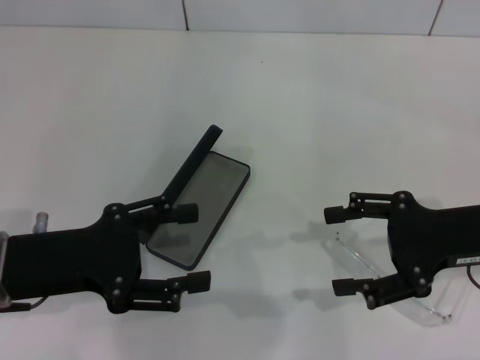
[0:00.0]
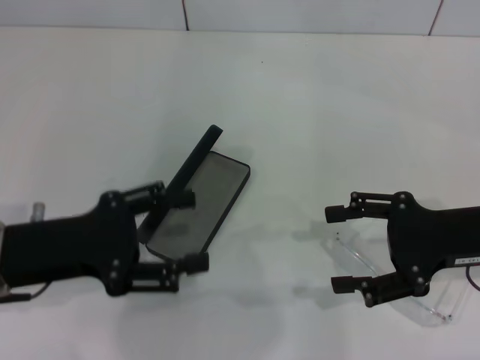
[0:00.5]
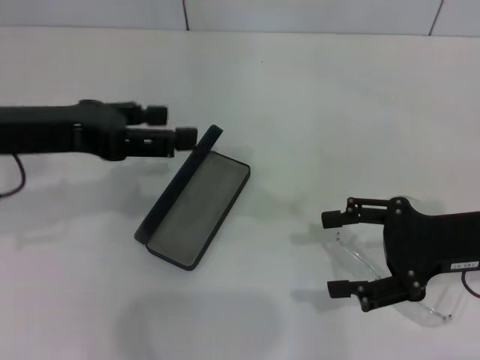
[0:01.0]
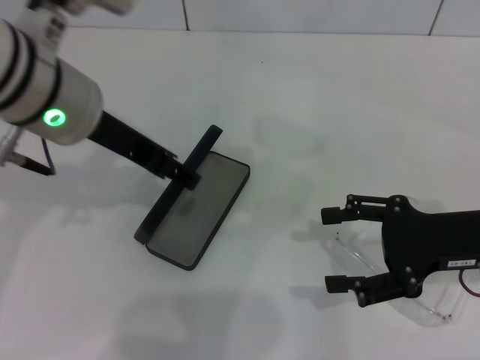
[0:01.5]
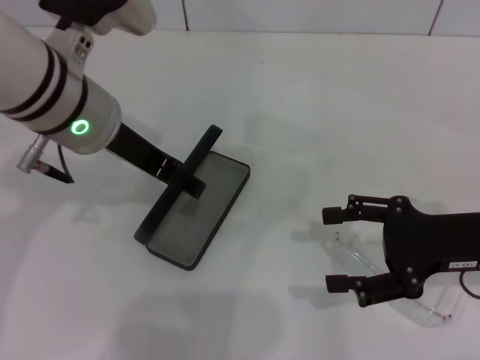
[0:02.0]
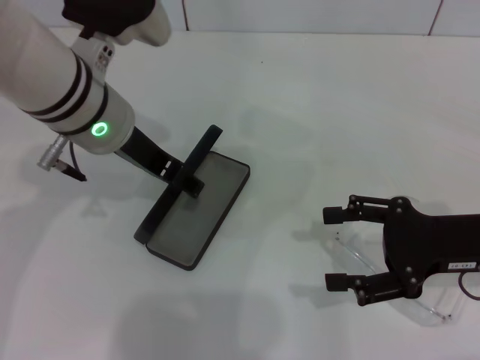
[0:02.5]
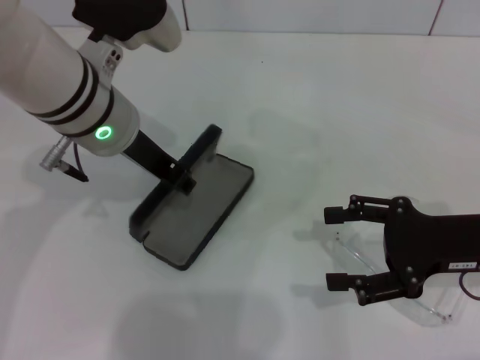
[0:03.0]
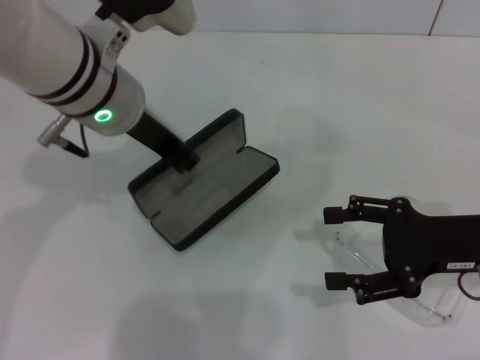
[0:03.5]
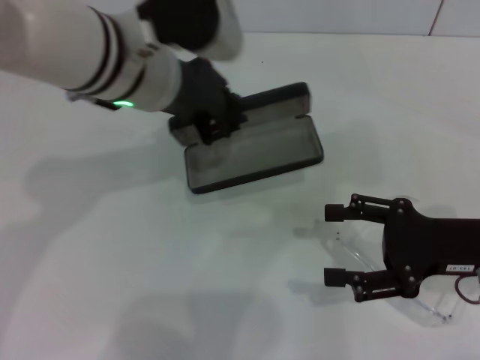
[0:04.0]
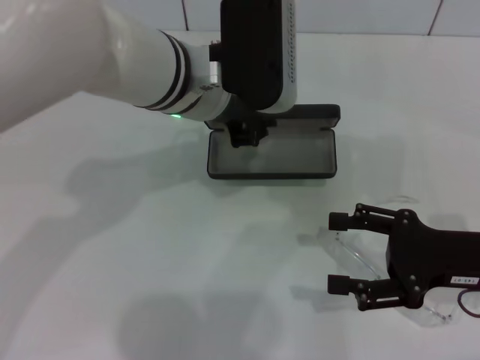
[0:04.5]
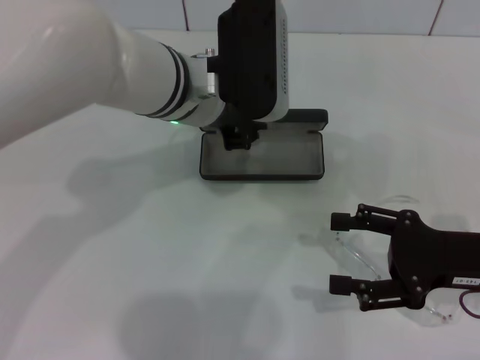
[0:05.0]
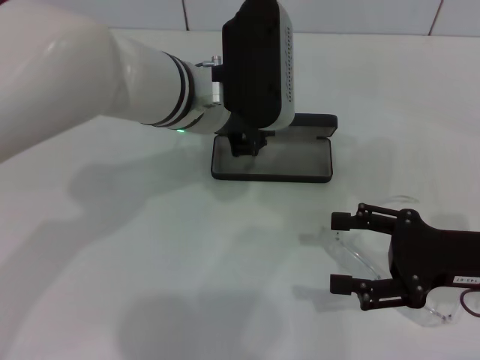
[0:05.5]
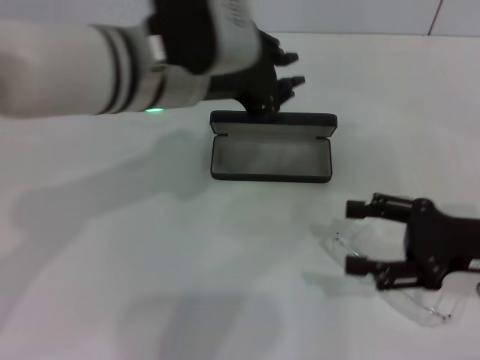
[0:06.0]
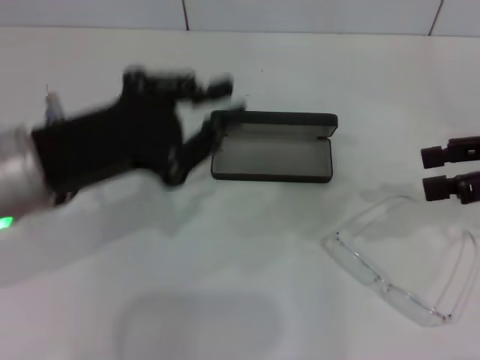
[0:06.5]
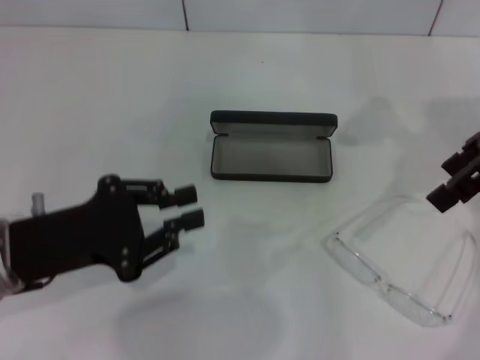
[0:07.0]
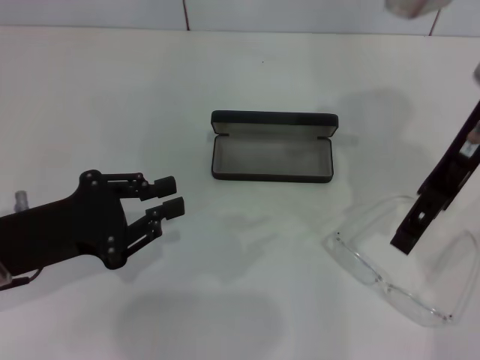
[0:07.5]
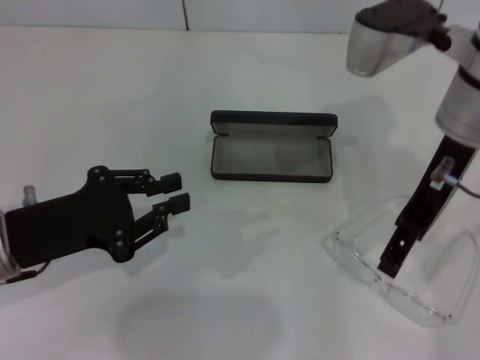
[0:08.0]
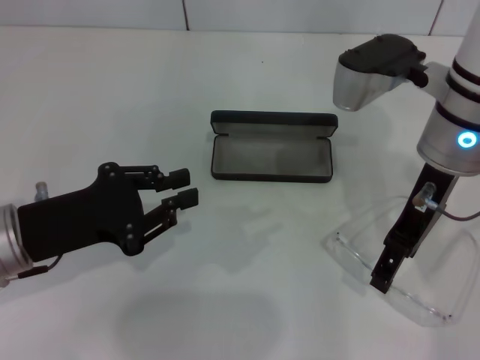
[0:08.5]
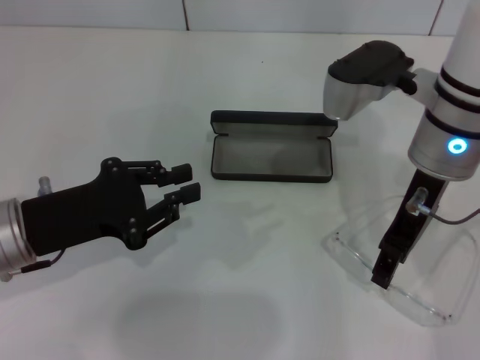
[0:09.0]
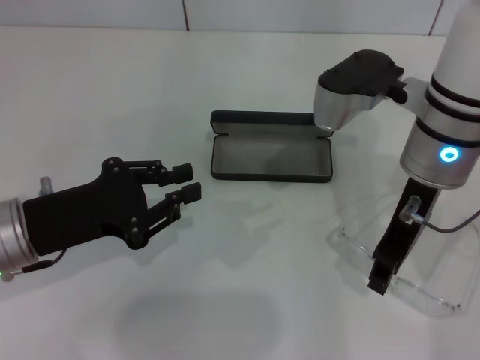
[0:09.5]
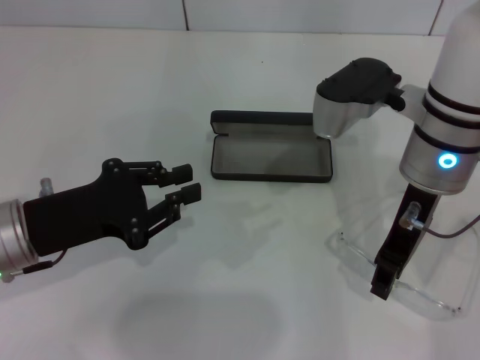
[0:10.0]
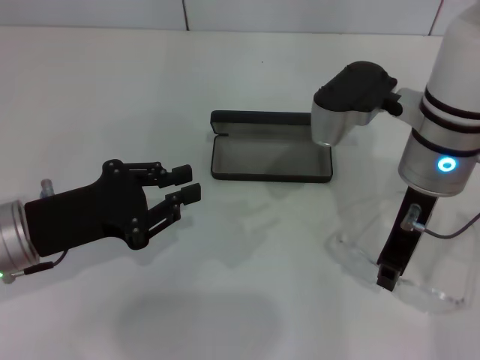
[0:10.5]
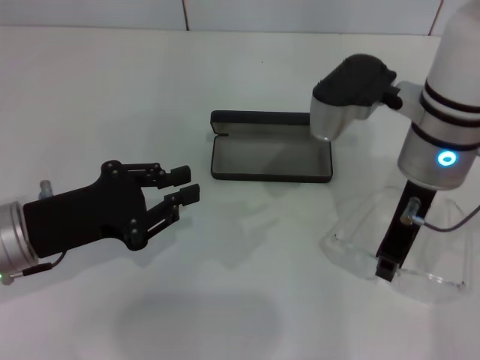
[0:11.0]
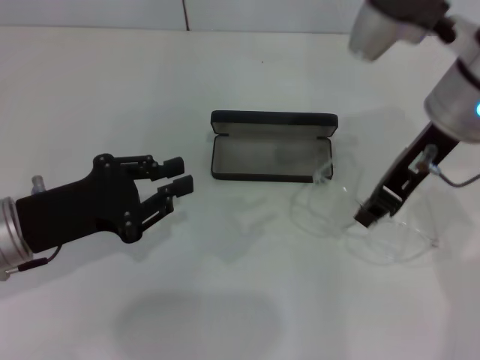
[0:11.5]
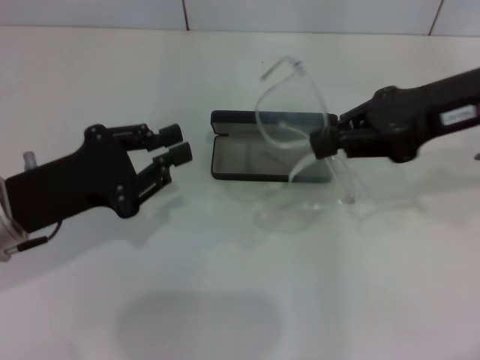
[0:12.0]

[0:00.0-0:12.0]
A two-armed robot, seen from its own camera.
Step, 0:00.0 to 0:03.0: Grab the glasses case with your left hand.
Step, 0:03.5 to 0:05.0: Place the glasses case in the center of the table with your left hand.
Step, 0:06.0 to 0:10.5: Grab the eyeglass frame with your right hand.
0:00.0 to 0:02.0: The left gripper travels forward, to the right and upward by some 15 cm.
0:02.0 to 0:04.0: The left gripper closes.
0:06.0 to 0:08.0: The left gripper is displaced to the left, downward and backward by approximately 20 cm. Meanwhile the right gripper is displaced upward, to the left and forward by approximately 20 cm.
0:08.0 to 0:10.0: The right gripper changes place by approximately 5 cm, and closes up.
0:10.0 to 0:12.0: The right gripper goes some 10 cm to the right and upward, and closes its fingers.

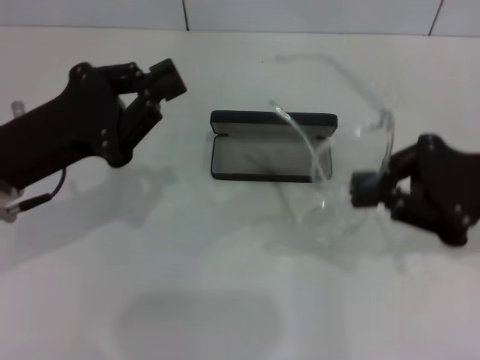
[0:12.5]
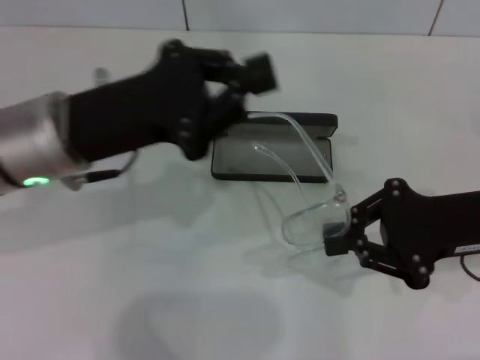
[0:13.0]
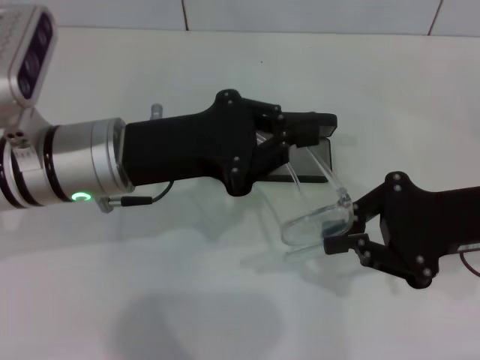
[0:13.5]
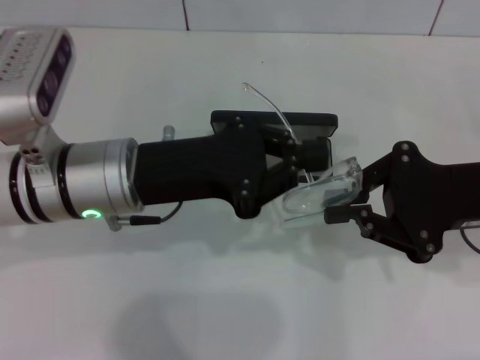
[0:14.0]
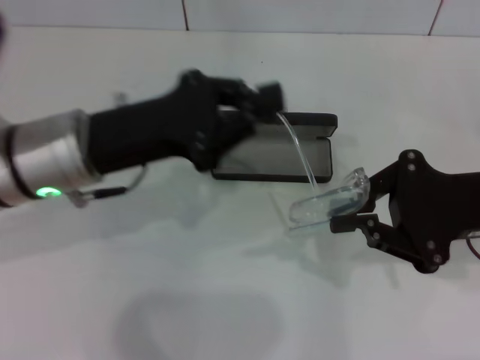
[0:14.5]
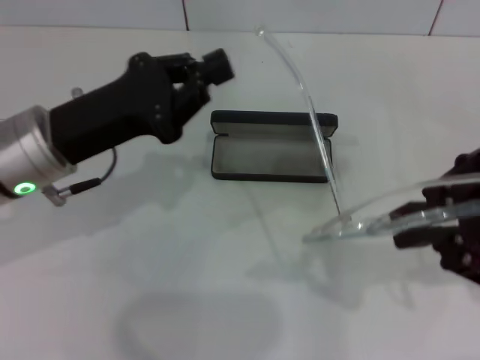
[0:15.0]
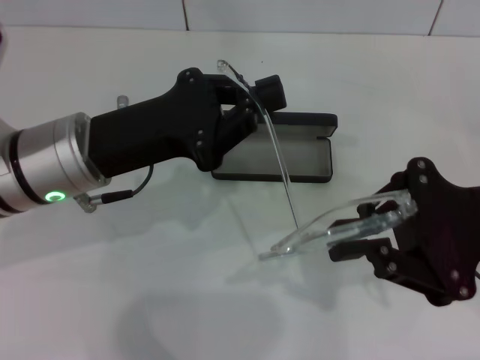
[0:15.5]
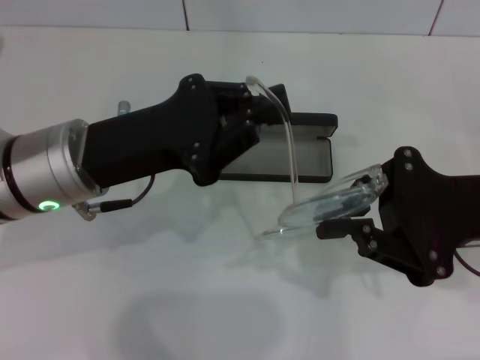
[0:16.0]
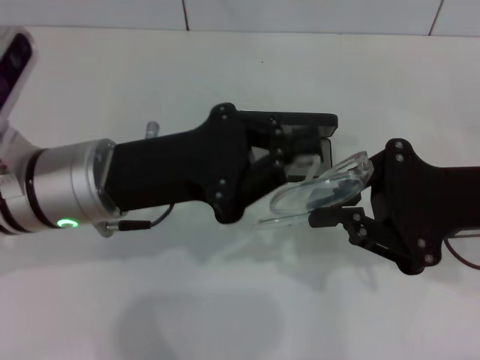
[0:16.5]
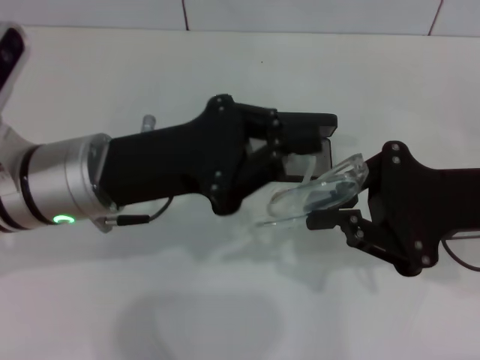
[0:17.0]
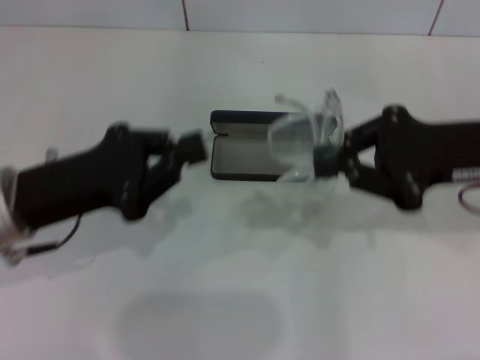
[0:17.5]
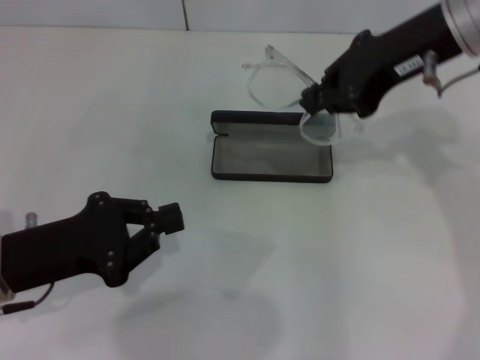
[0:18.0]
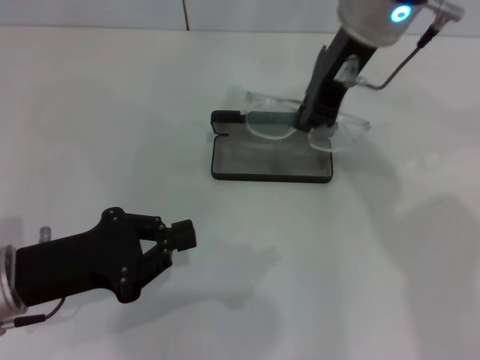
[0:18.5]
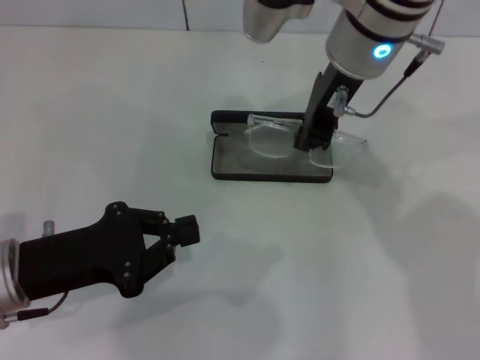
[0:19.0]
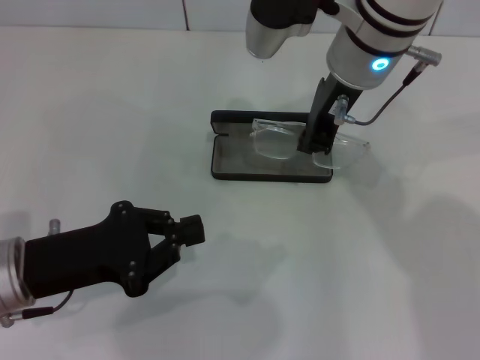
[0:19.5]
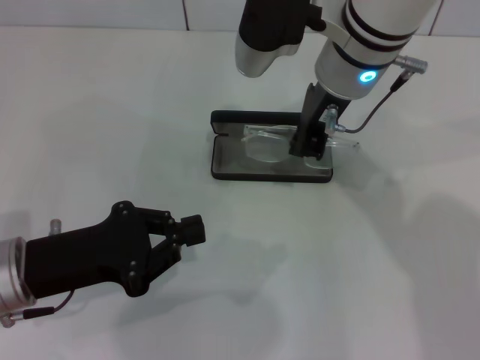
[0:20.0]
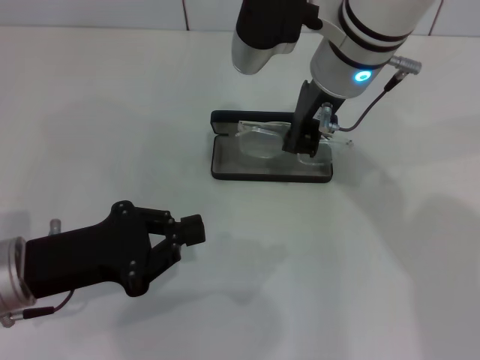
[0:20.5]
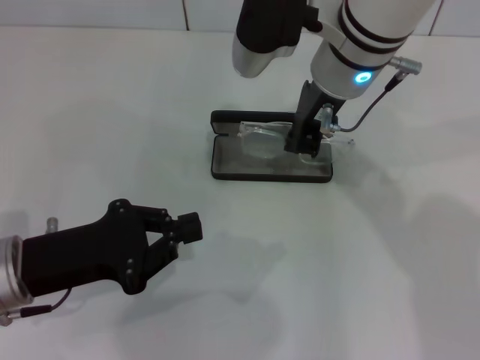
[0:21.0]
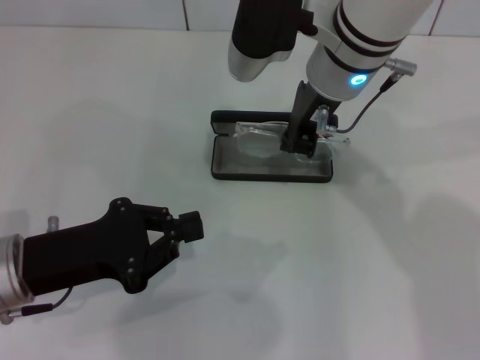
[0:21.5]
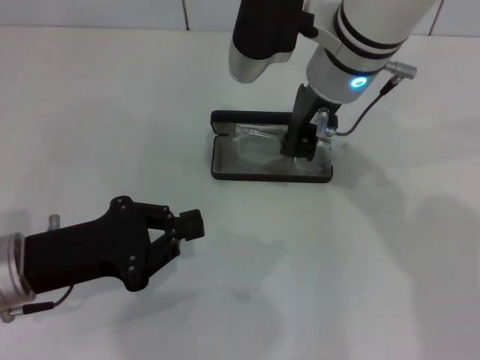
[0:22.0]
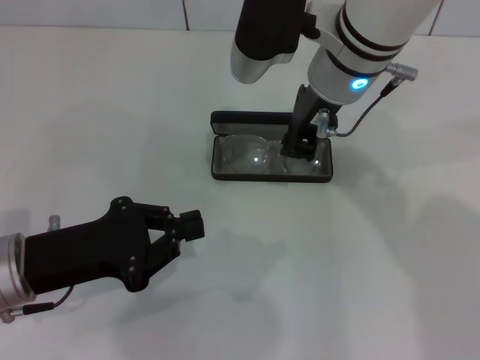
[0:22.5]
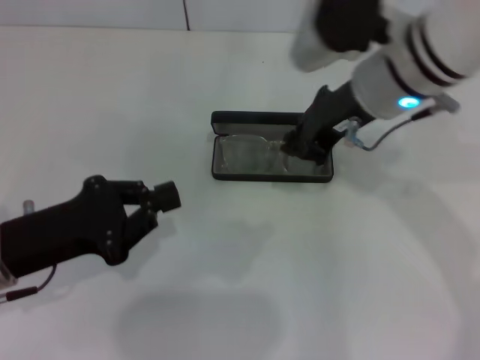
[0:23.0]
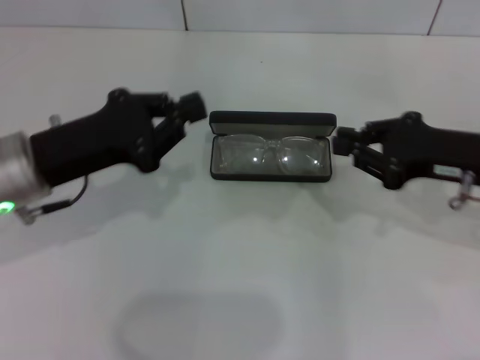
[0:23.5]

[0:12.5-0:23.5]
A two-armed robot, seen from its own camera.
Step, 0:12.5 to 0:16.5: Lift the glasses with your right hand.
Step, 0:17.0 to 0:22.5: Put the glasses into the case with your right hand.
0:12.5 to 0:14.5: The left gripper travels to the right by roughly 5 cm.
0:14.5 to 0:16.0: The grippers make only small movements.
0:16.0 to 0:18.0: The left gripper heads to the left, backward and downward, covering some 10 cm. Meanwhile the right gripper heads upward, forward and to the left, covering some 15 cm.
0:18.0 to 0:20.0: The right gripper is displaced to the left and downward by approximately 10 cm.
0:20.0 to 0:21.5: Both grippers stay about where they are.
0:21.5 to 0:23.5: The right gripper travels to the right and backward by about 20 cm. Meanwhile the left gripper moves forward, roughly 5 cm.

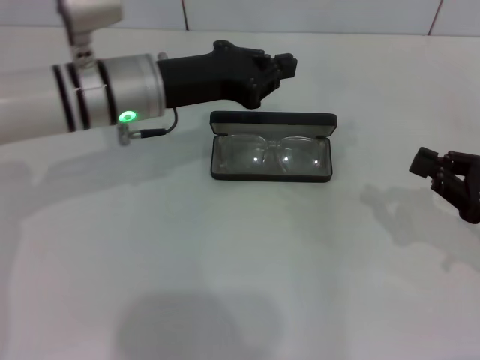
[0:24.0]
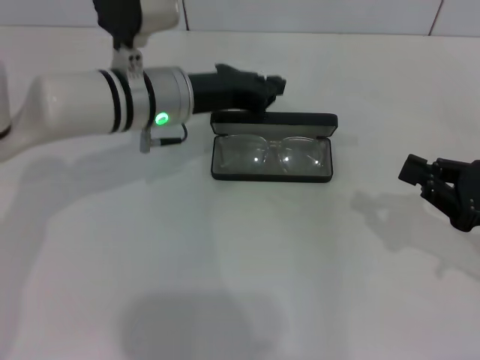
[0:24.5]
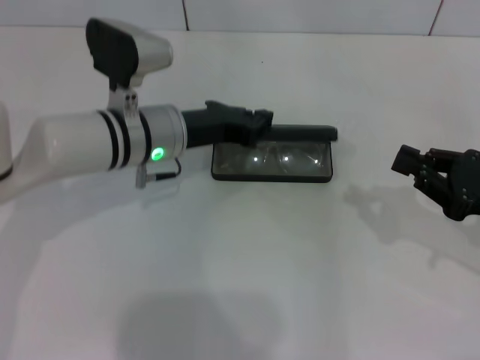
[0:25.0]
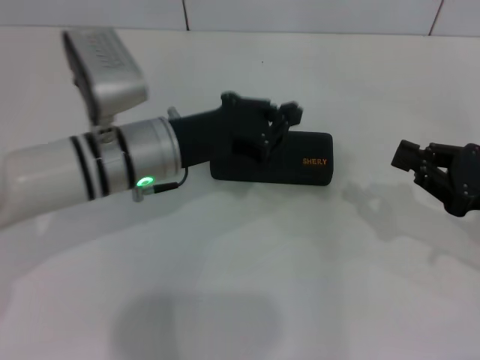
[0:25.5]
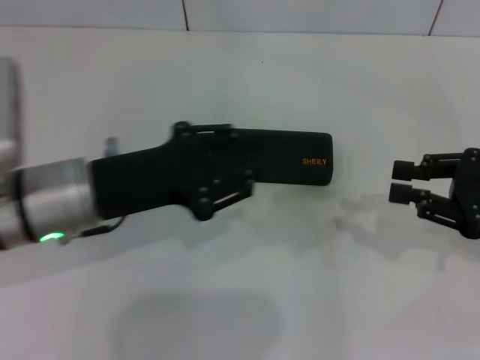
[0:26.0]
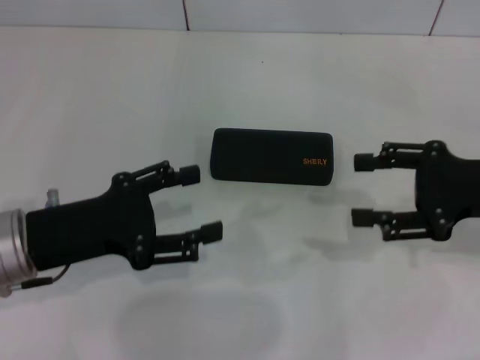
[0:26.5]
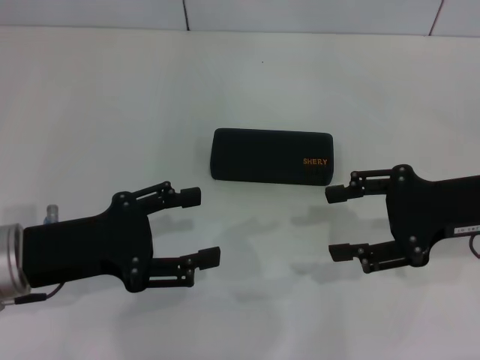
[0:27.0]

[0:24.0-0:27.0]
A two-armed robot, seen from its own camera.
0:24.0 to 0:25.5: The left gripper ends up some 5 cm from where it was.
0:25.5 to 0:27.0: The right gripper is displaced upward and to the left by roughly 5 cm, and opens up, while the left gripper travels to the left and backward by roughly 15 cm, and opens.
